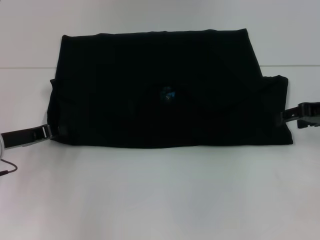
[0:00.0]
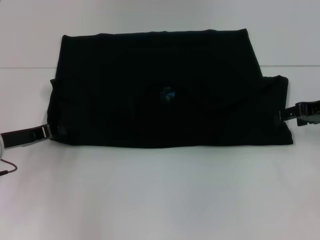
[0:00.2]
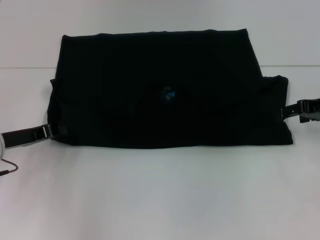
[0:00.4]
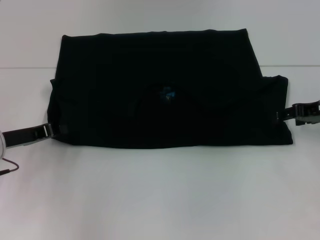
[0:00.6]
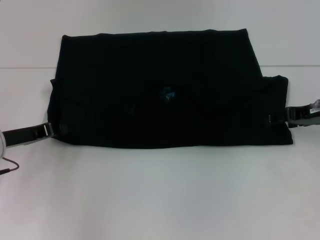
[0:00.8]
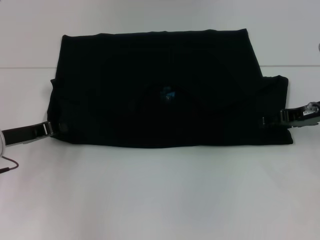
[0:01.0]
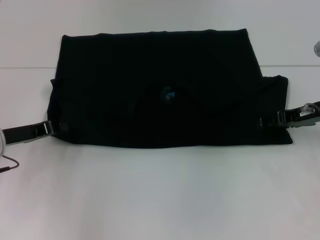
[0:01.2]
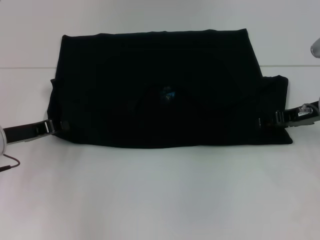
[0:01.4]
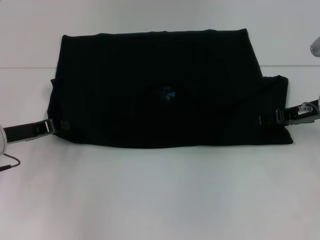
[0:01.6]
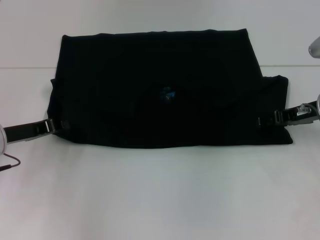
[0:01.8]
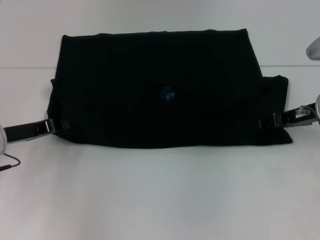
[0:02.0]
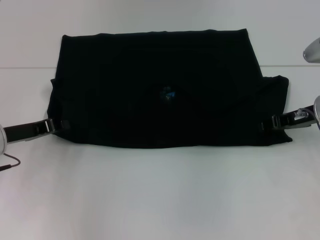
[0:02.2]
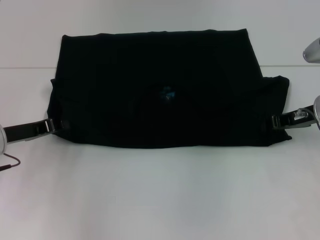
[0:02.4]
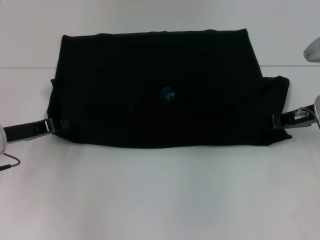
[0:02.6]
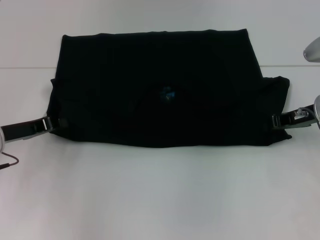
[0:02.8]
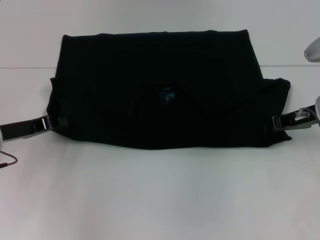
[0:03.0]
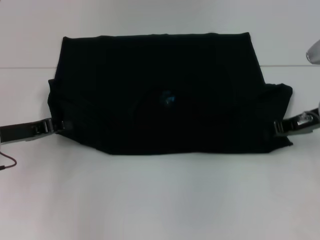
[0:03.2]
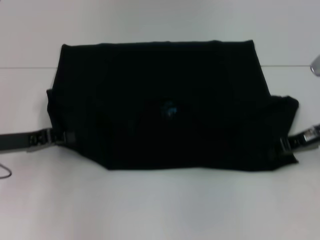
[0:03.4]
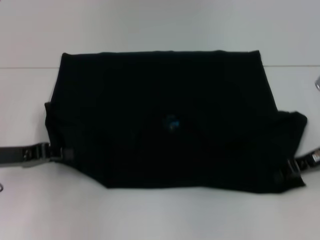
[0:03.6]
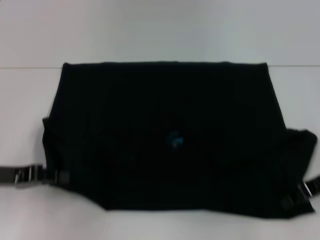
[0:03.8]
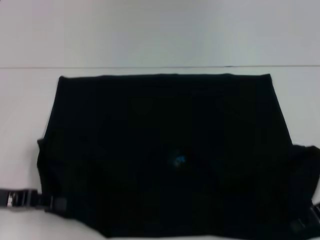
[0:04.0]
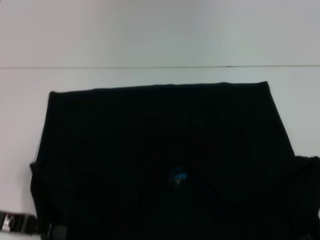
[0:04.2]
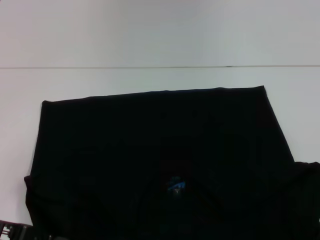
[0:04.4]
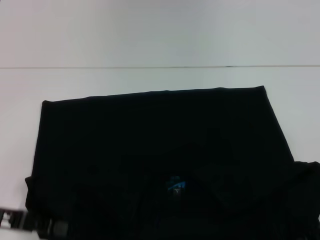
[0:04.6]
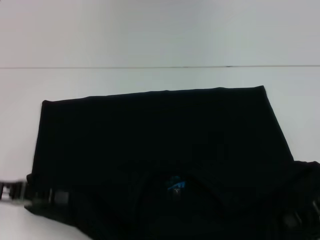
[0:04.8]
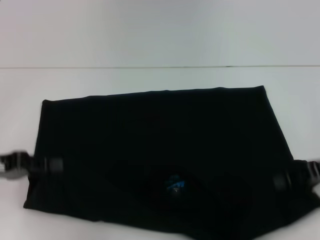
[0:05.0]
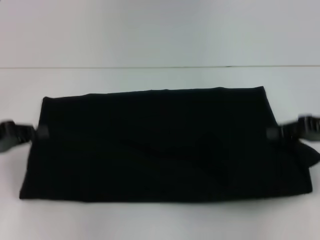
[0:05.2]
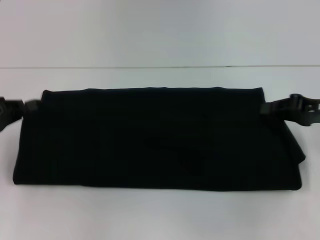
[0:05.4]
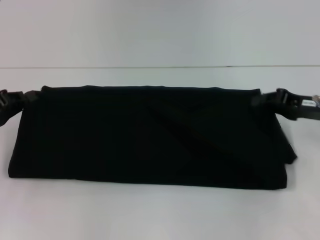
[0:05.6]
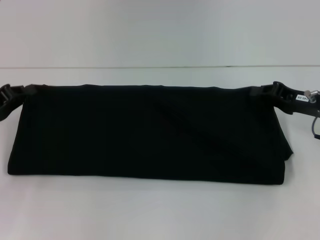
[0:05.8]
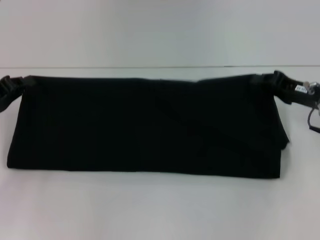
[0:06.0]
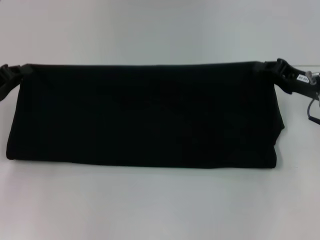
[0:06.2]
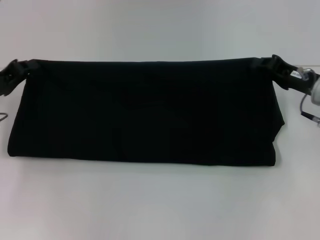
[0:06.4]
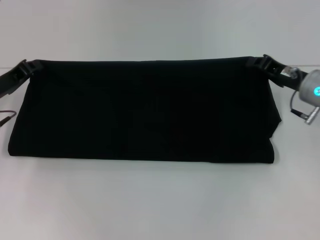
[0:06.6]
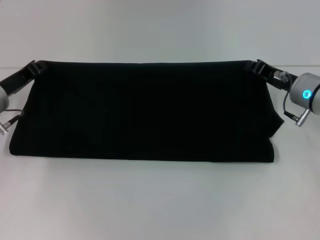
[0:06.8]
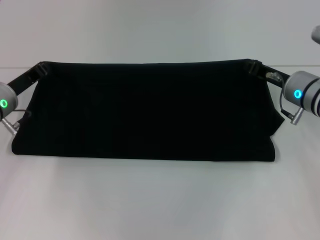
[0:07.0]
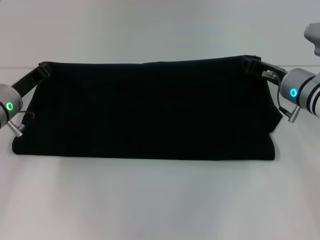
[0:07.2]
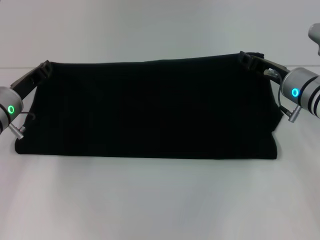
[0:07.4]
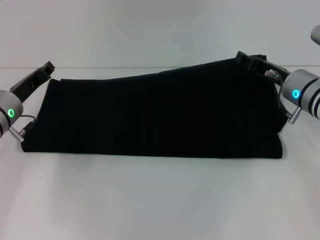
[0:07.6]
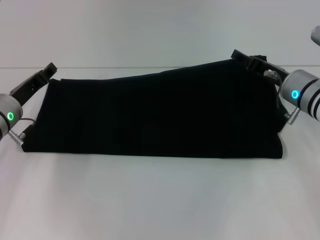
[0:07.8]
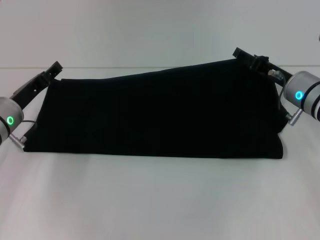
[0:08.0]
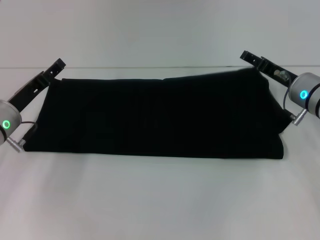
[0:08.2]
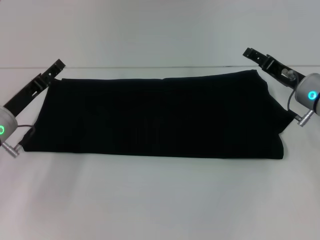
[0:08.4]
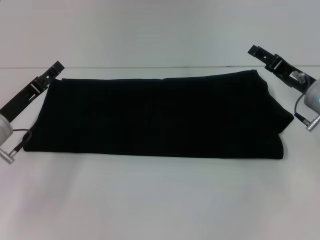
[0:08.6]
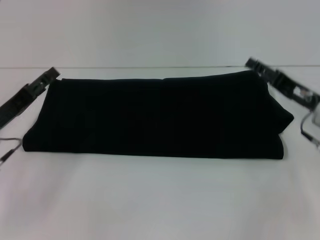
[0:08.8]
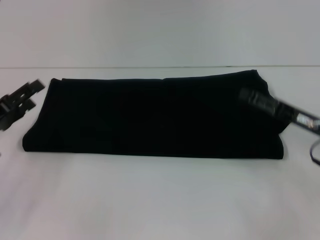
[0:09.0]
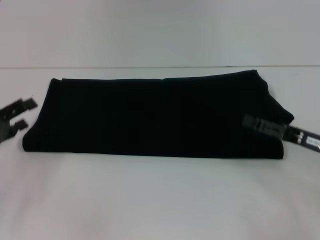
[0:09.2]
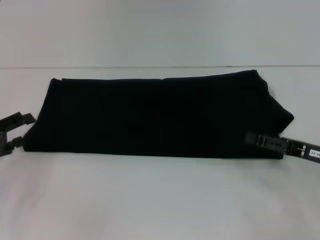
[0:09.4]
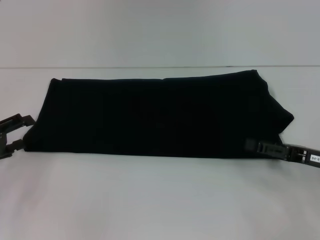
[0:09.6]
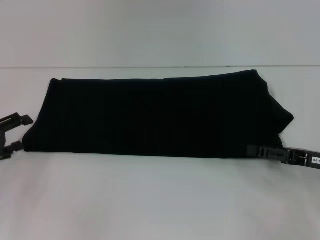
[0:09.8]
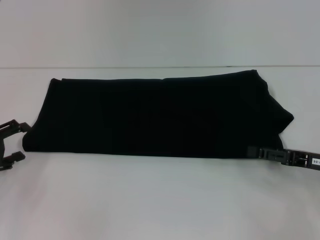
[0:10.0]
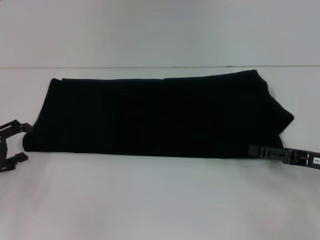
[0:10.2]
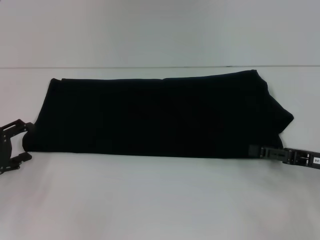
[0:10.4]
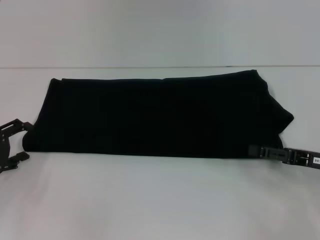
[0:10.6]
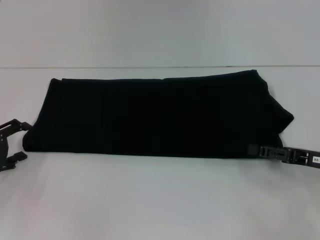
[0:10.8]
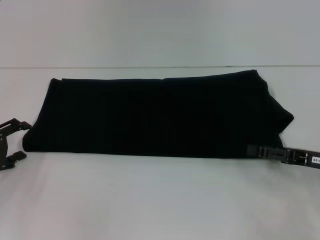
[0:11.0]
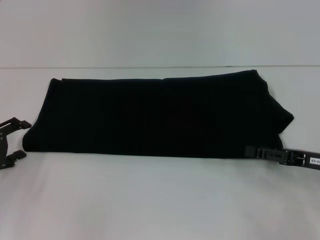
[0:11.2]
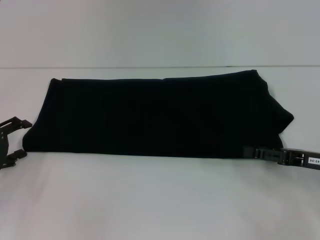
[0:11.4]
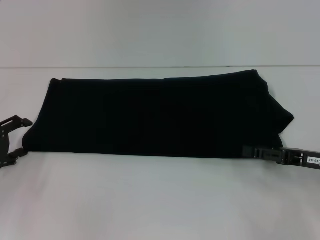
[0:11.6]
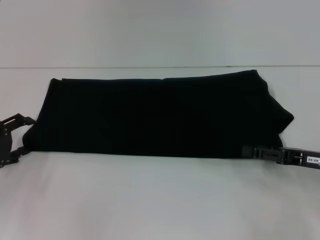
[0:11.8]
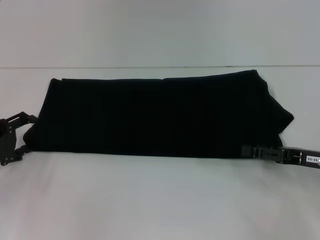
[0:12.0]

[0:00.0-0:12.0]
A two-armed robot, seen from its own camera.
Step, 0:00.0 to 0:04.2: Pull the clothes with your left hand.
Step, 0:00.0 to 0:04.2: Pull the clothes with your right hand.
Step, 0:04.4 to 0:08.4: Fold the clothes with your right hand.
0:00.0 to 0:01.6: The right gripper shifts by some 5 cm.
0:01.6 to 0:03.0: The right gripper closes its fingers.
0:03.0 to 0:04.4: Both grippers travel together backward, some 10 cm.
0:04.4 to 0:06.0: The two grippers go roughly 10 cm forward.
0:06.0 to 0:07.6: The right gripper moves to the left, approximately 5 cm, and opens; the left gripper moves to the right, roughly 5 cm.
0:07.6 to 0:09.0: The left gripper heads backward and to the left, covering approximately 10 cm, and opens its fingers. Meanwhile the right gripper shifts about 10 cm backward and to the right, and opens its fingers.
0:10.4 to 0:12.0: There are only small adjustments of the grippers.

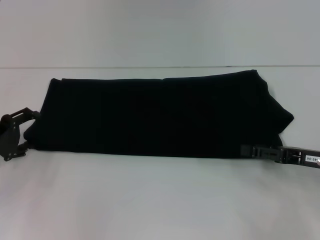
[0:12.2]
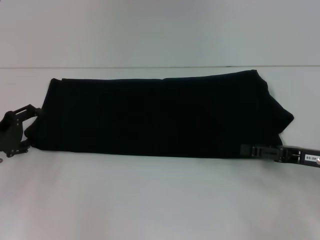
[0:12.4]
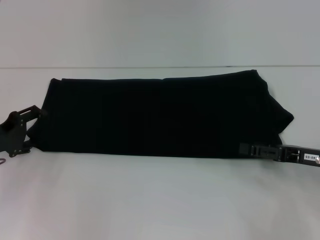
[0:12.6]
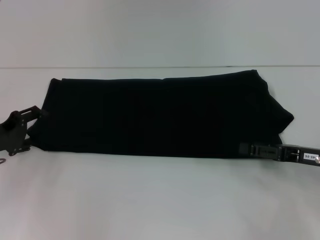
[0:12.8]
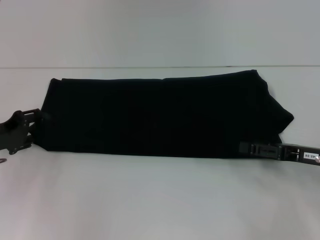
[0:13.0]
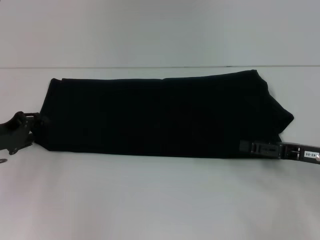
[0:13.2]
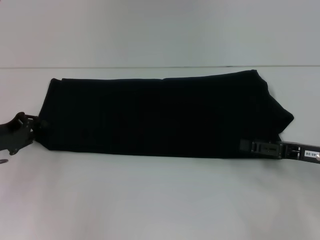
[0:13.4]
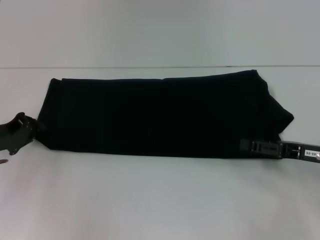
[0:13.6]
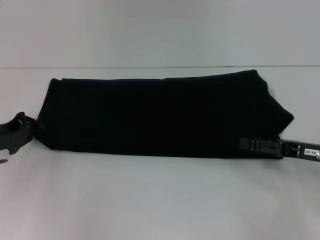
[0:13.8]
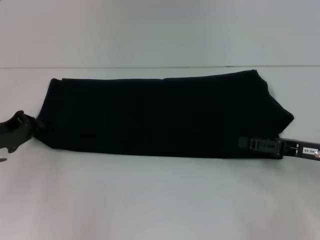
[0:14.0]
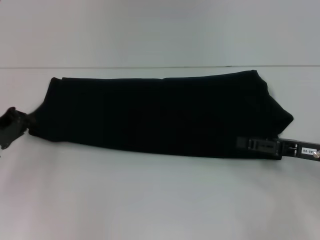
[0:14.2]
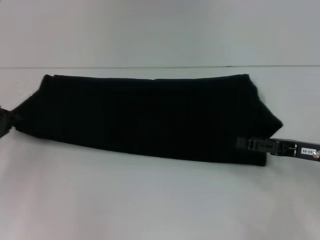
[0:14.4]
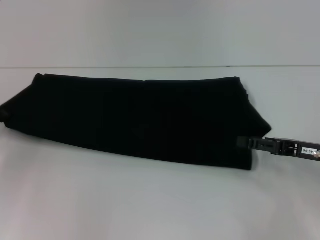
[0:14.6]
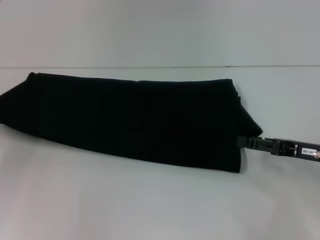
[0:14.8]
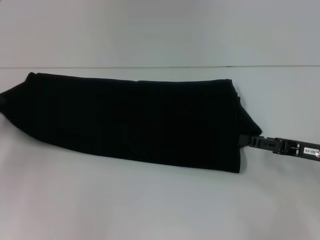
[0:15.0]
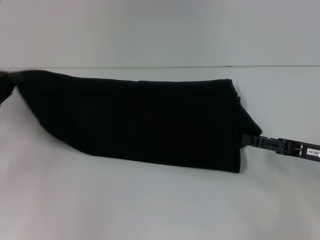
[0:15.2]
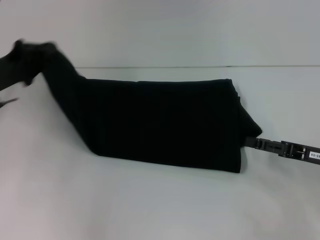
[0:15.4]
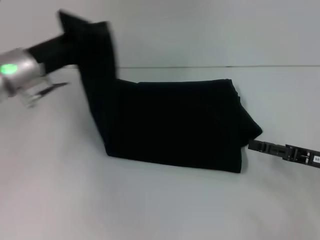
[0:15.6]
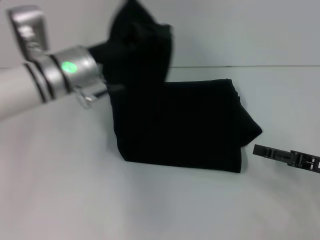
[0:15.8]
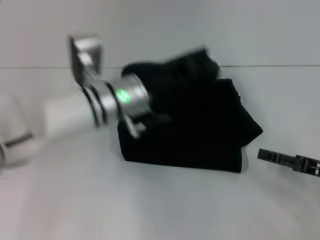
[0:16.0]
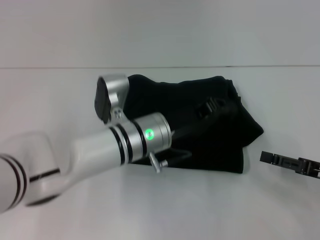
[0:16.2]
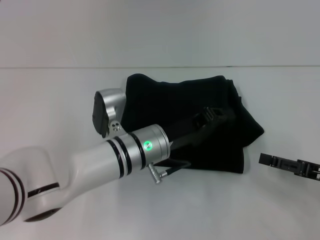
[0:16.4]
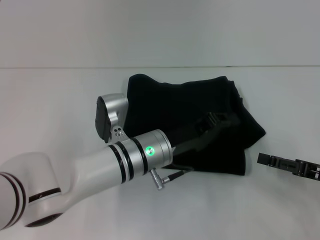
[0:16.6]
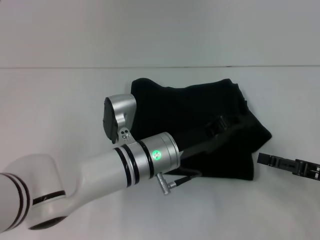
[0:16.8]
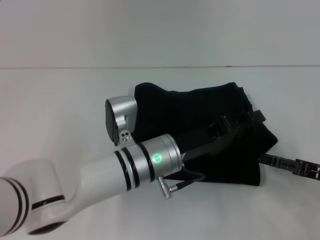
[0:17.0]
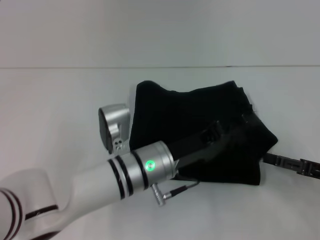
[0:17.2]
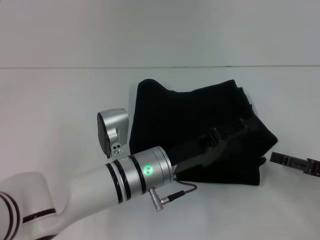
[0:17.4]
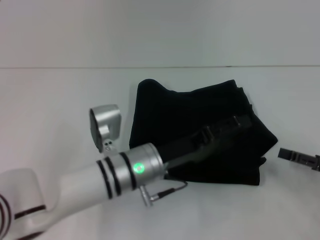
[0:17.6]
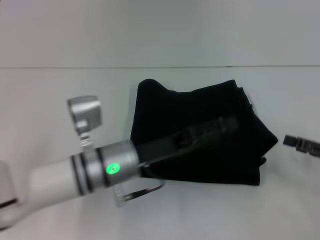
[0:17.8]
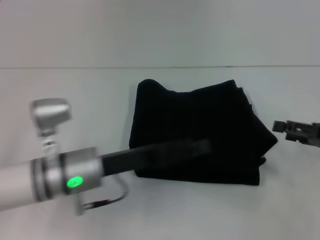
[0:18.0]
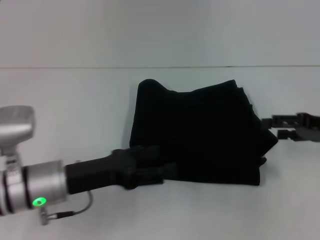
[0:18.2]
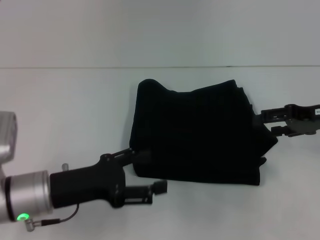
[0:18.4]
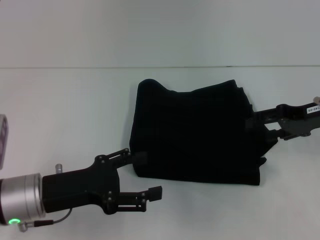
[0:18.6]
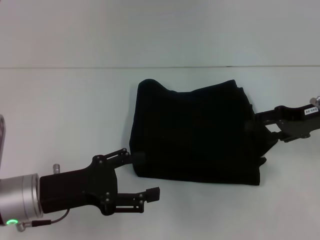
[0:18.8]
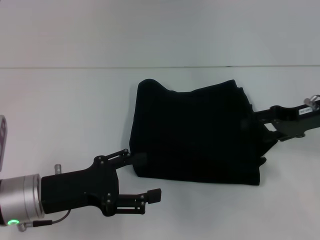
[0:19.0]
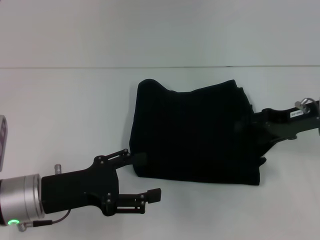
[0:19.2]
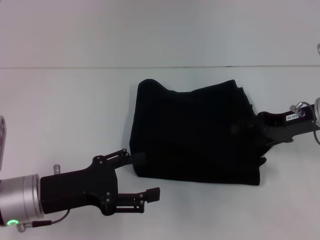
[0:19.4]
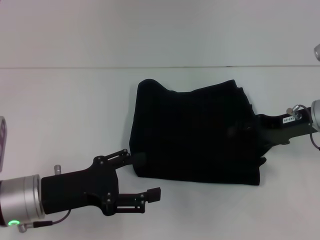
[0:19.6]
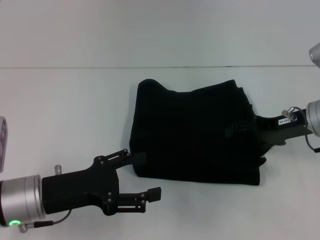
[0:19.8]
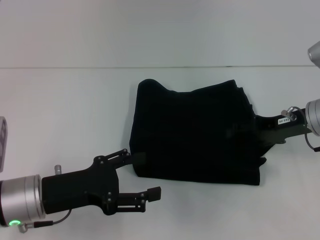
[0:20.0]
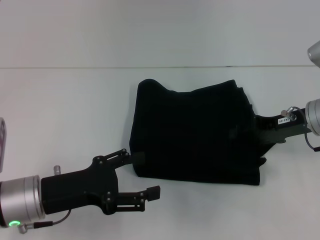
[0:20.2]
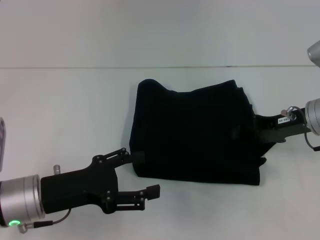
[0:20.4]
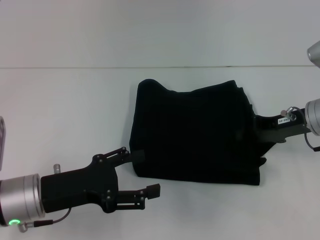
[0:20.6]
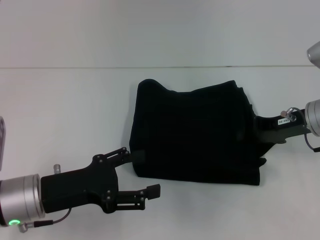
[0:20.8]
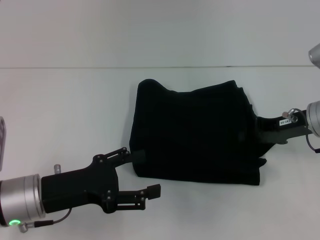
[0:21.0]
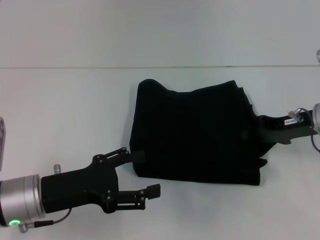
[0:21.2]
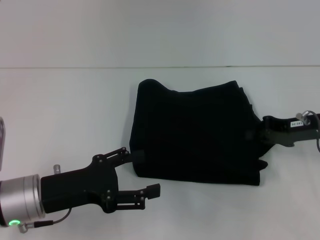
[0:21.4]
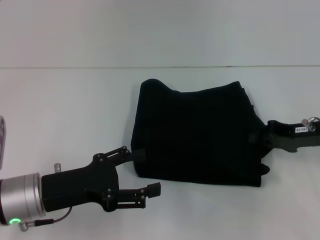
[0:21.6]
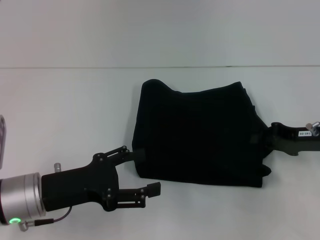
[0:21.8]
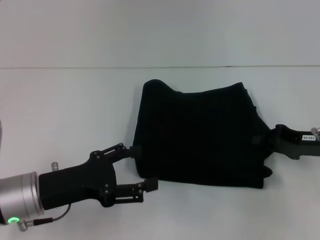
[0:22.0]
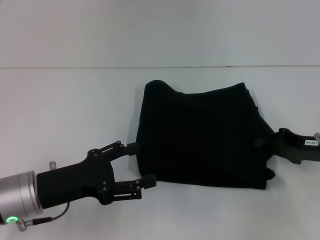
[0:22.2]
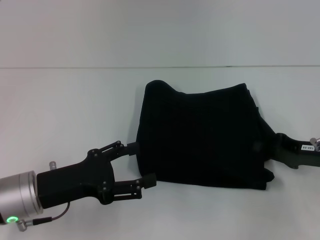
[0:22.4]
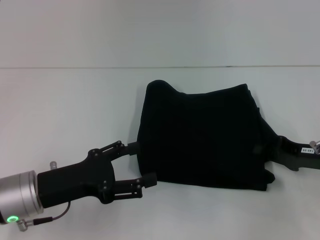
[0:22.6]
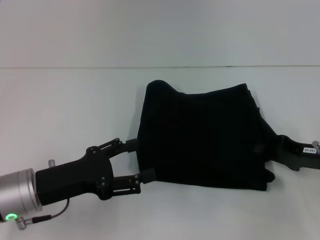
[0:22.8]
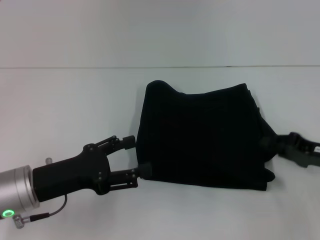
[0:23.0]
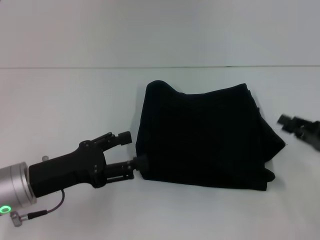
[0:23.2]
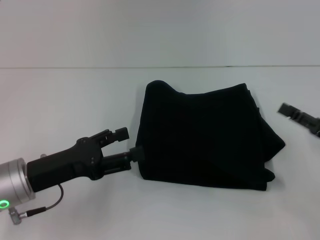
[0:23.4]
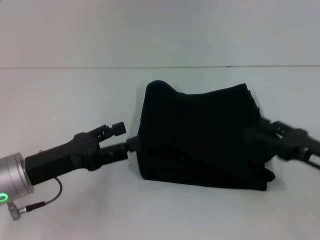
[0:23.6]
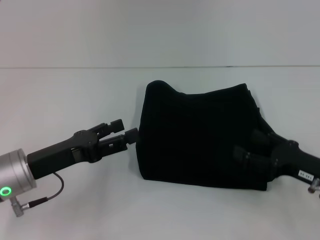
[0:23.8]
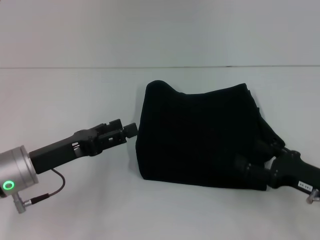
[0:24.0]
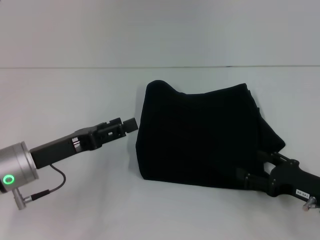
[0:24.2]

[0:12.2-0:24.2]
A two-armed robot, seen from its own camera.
Step, 0:12.2 to 0:17.6: Fold the clothes with your left hand.
0:12.2 to 0:13.8: The left gripper closes.
0:13.8 to 0:15.2: The left gripper moves approximately 5 cm.
0:15.2 to 0:16.6: The left gripper heads to the right, covering about 30 cm.
0:16.6 to 0:18.2: The right gripper heads forward and upward, covering approximately 10 cm. Meanwhile the left gripper is displaced to the left by roughly 15 cm, and opens up.
0:18.2 to 0:19.8: The right gripper travels to the left by roughly 5 cm.
0:19.8 to 0:21.2: The right gripper closes.
0:21.2 to 0:22.6: The right gripper is displaced backward and downward by about 10 cm.
0:22.6 to 0:24.2: The right gripper travels backward by roughly 5 cm, and opens.
